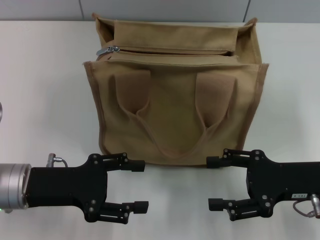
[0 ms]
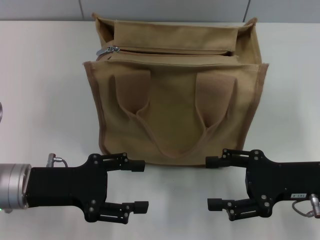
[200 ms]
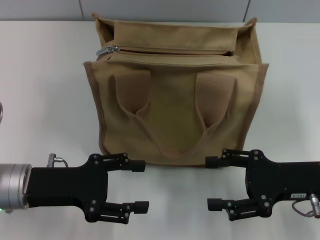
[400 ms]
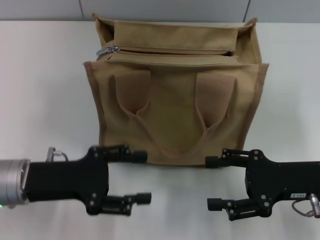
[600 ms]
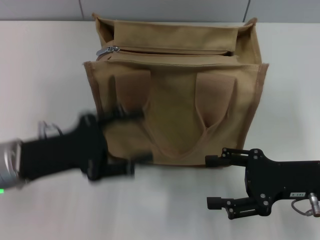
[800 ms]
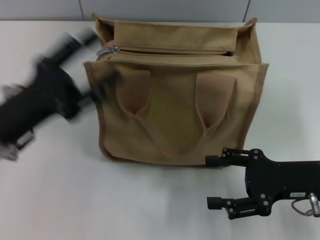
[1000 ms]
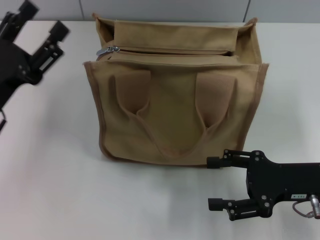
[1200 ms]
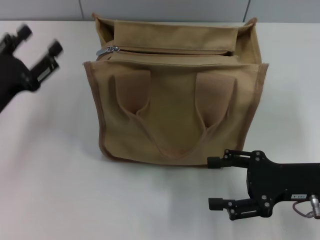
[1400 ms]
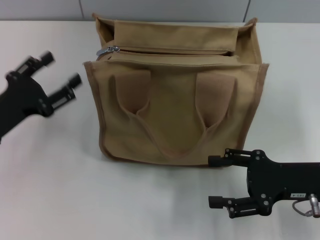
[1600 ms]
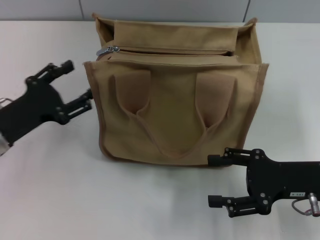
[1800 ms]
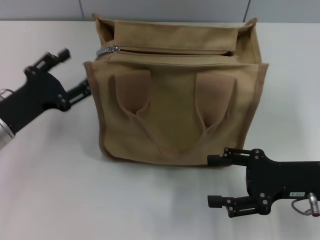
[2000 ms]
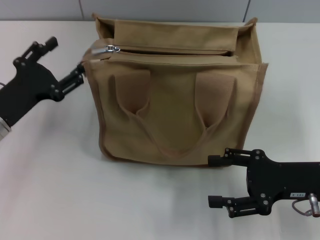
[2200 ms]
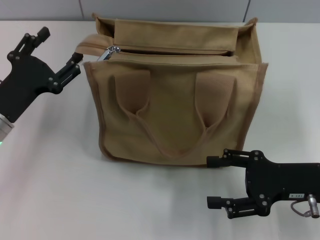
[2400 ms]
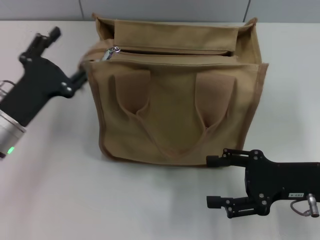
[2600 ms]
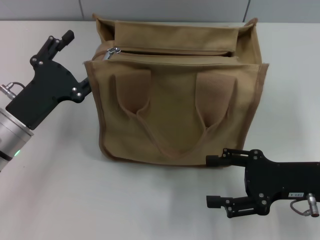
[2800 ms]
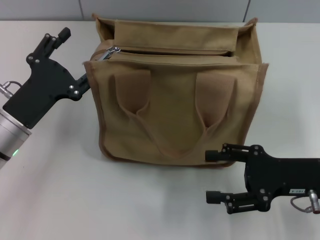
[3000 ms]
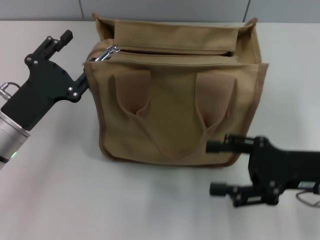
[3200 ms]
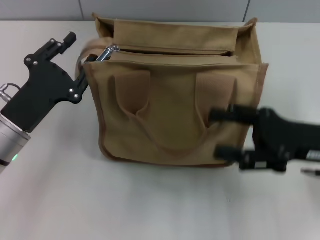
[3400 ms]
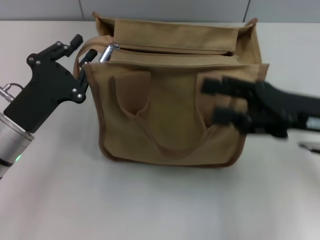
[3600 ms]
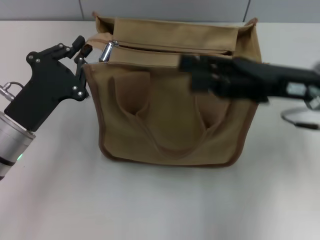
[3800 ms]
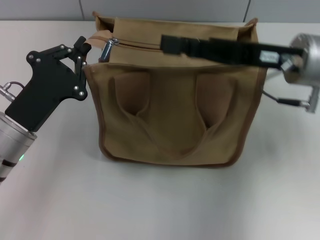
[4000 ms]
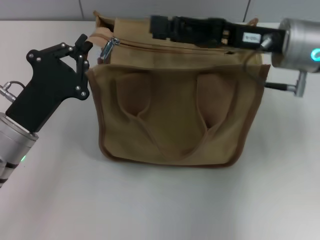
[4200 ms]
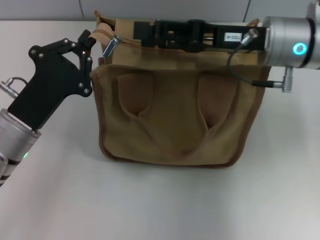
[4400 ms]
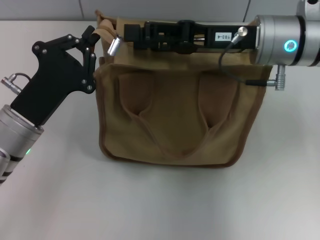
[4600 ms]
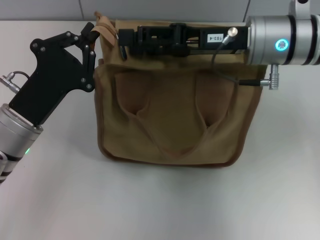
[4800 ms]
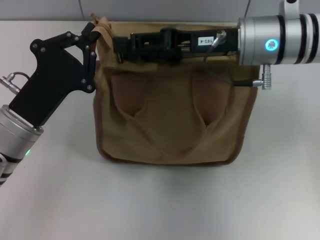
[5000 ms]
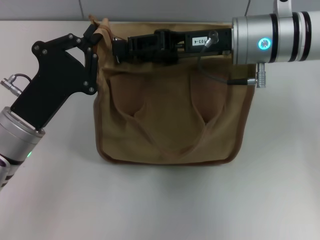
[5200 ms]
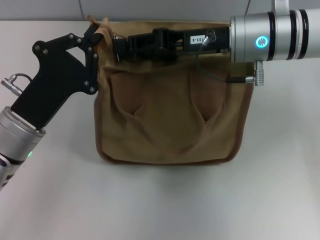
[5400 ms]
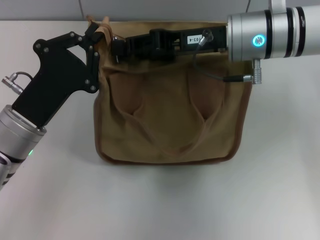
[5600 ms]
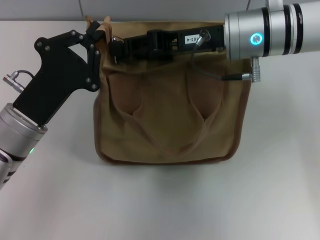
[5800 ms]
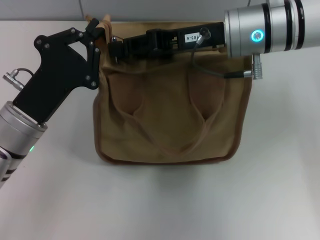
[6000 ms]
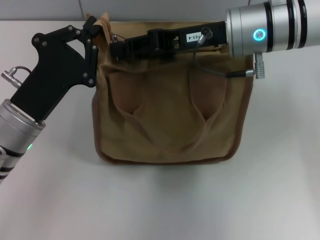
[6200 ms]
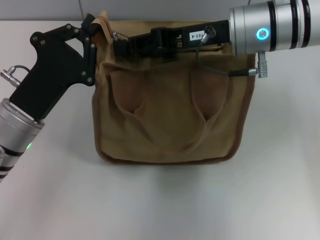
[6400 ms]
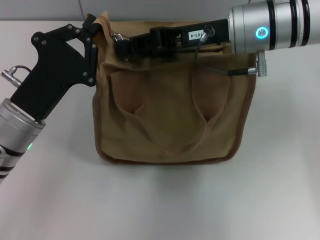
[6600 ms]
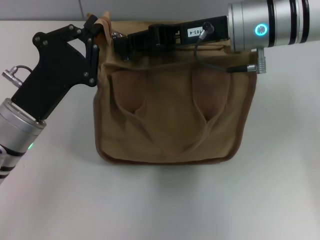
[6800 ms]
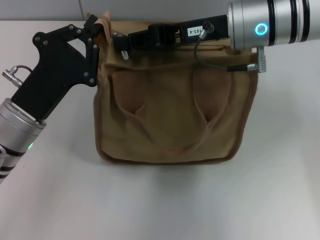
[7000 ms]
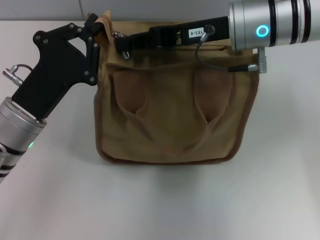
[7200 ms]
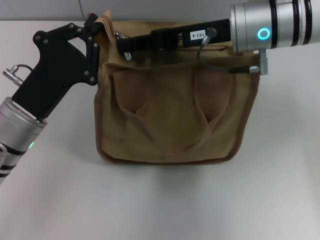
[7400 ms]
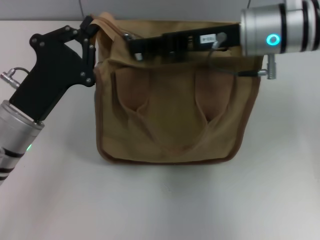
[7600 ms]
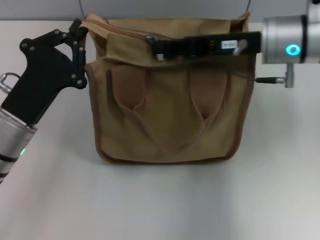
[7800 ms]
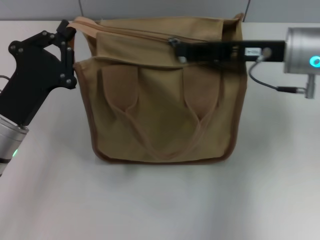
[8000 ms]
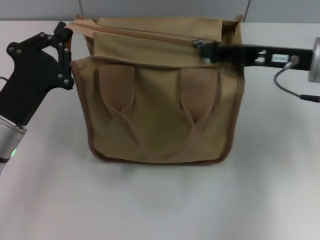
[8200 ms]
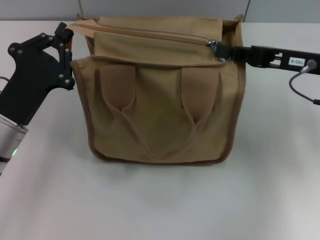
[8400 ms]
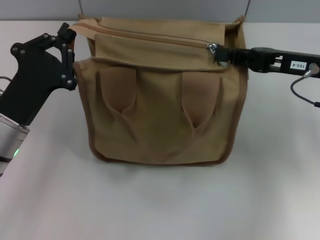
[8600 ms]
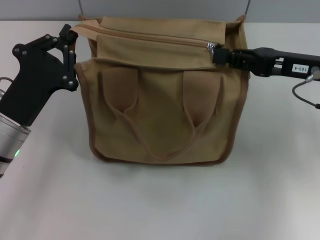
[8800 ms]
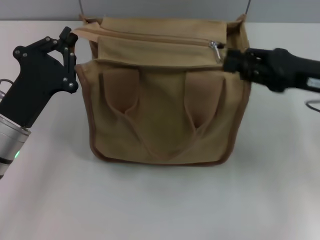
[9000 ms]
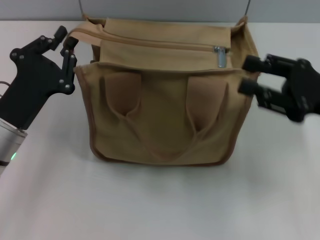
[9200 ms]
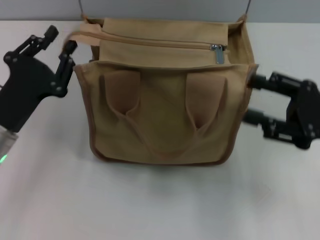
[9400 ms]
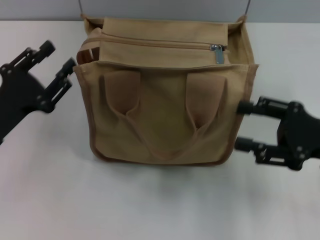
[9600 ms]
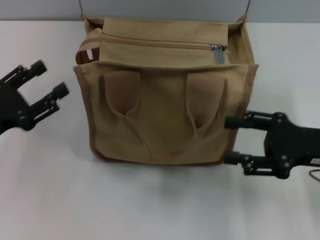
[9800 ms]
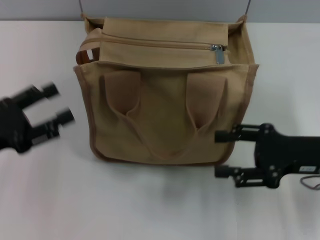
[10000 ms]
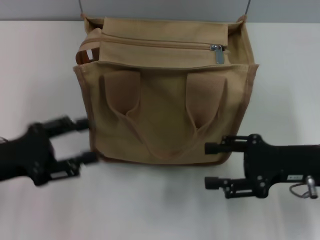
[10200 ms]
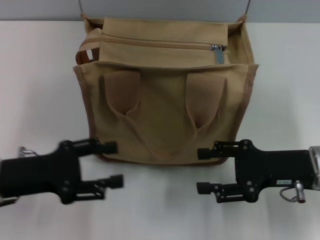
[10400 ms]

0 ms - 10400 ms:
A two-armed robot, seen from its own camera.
Step, 0 ms - 9200 ms: Pull up the zipper with your right hand.
Step, 9400 ms - 9800 ms: Grab the zipper with your left hand.
0 ms - 1400 ms: The left gripper shifts by about 5 cm.
3000 ms - 4400 ms: The left gripper closes, while the right gripper is displaced forward, upward and to the left by roughly 20 cm.
4400 ms - 6000 ms: The right gripper closes.
6000 ms - 7400 ms: There are only small adjustments of the grippers.
7400 ms - 9000 ms: The right gripper moves to the right and backward, about 15 cm.
9000 ms - 10400 ms: The right gripper travels downward and backward by about 10 cm, and opens up. The left gripper opens its fingers.

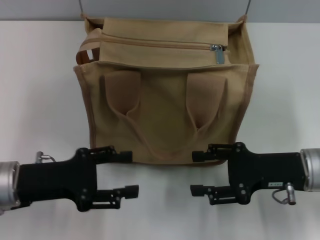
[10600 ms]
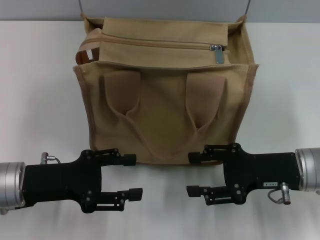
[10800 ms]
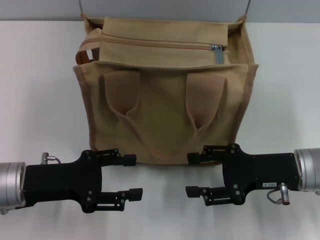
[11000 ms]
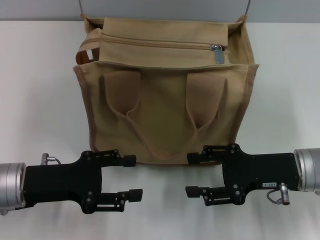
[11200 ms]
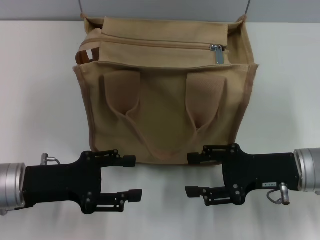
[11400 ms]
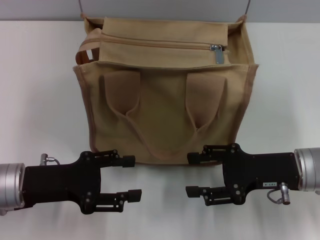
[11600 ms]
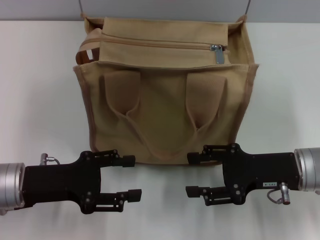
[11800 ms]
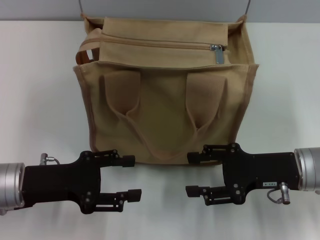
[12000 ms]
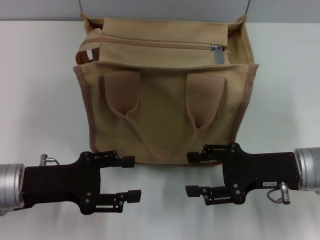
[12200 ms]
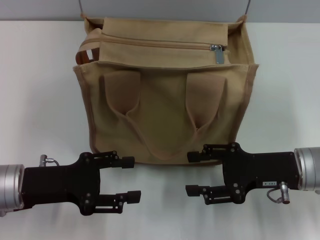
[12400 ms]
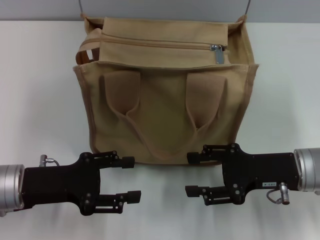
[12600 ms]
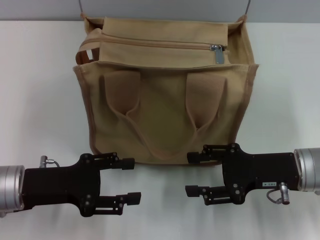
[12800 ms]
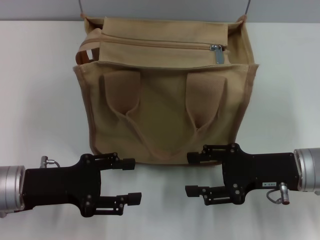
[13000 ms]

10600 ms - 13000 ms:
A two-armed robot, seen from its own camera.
10600 ms - 13000 ms: Both grippers stay about where they are.

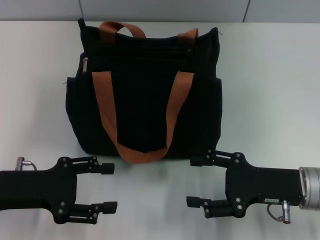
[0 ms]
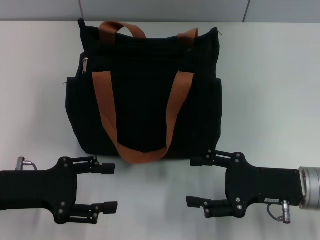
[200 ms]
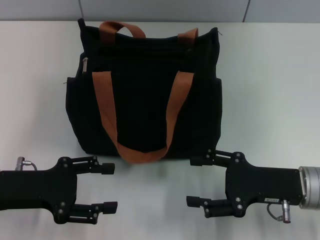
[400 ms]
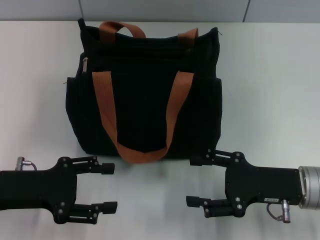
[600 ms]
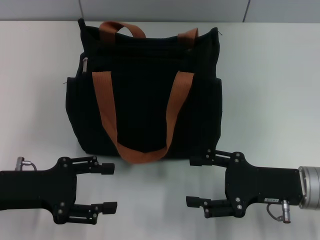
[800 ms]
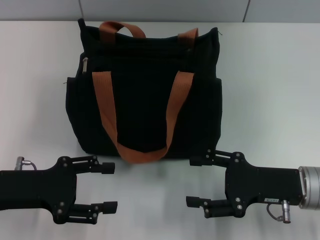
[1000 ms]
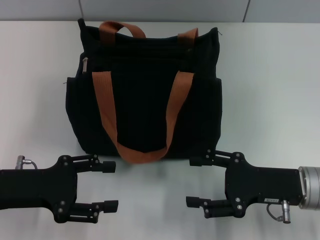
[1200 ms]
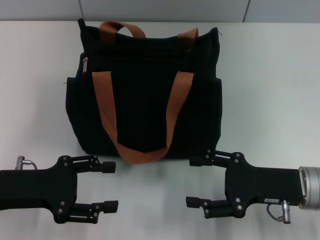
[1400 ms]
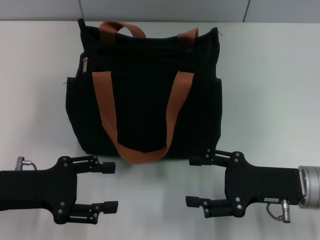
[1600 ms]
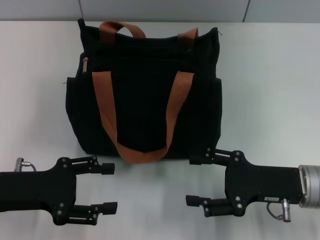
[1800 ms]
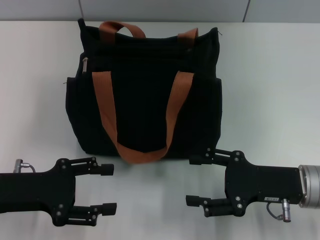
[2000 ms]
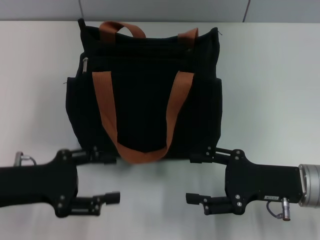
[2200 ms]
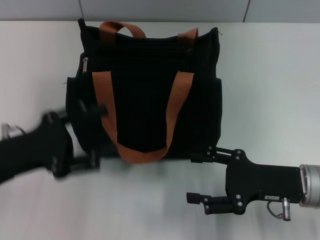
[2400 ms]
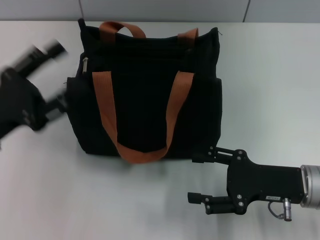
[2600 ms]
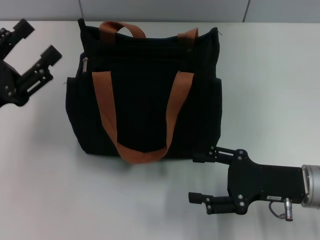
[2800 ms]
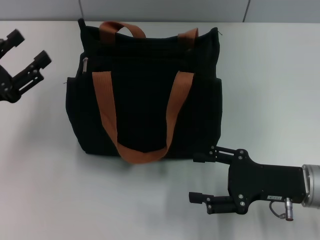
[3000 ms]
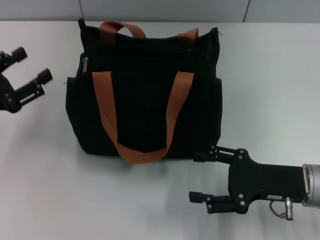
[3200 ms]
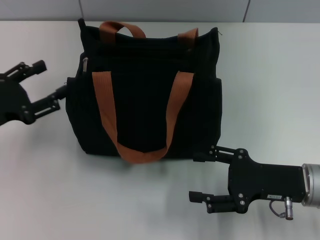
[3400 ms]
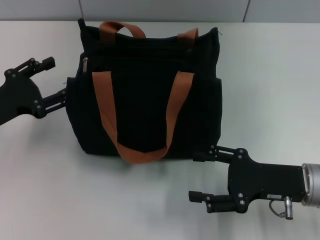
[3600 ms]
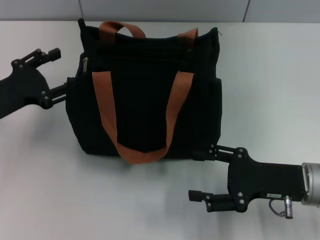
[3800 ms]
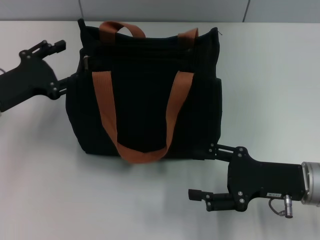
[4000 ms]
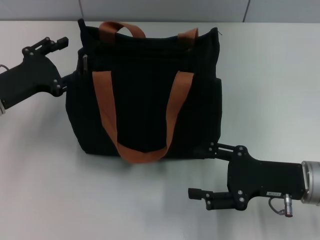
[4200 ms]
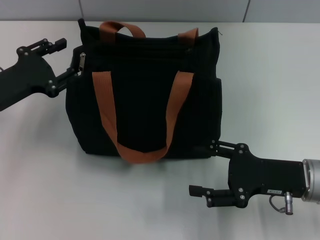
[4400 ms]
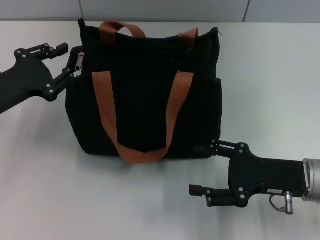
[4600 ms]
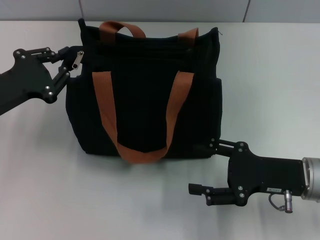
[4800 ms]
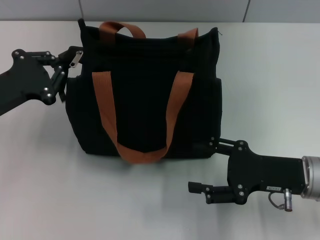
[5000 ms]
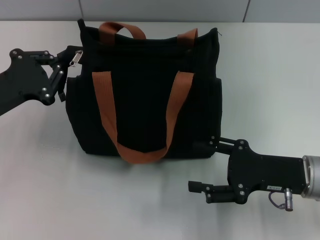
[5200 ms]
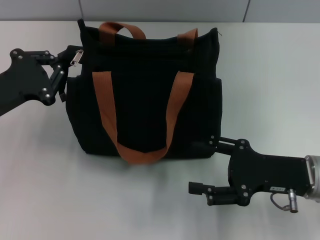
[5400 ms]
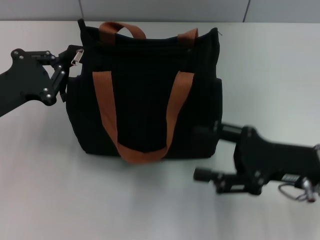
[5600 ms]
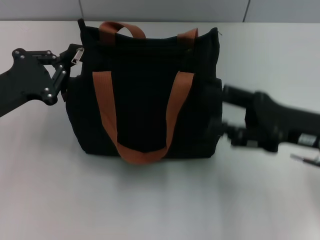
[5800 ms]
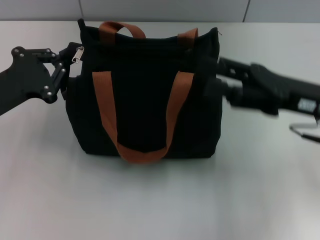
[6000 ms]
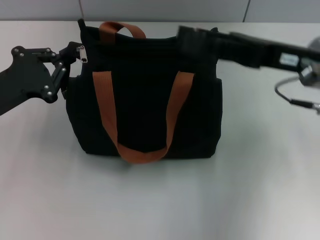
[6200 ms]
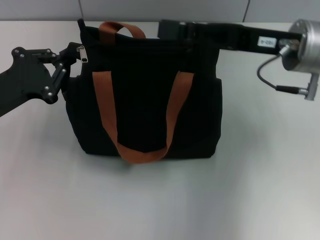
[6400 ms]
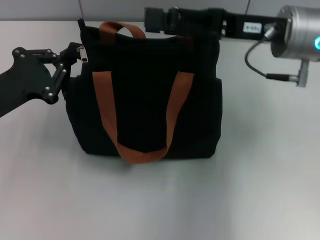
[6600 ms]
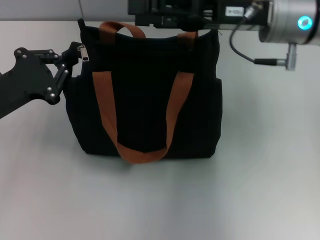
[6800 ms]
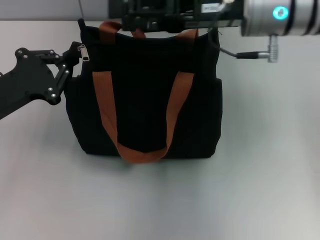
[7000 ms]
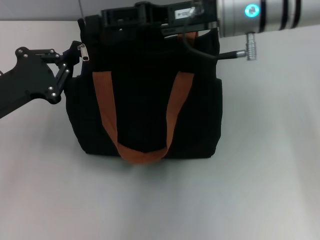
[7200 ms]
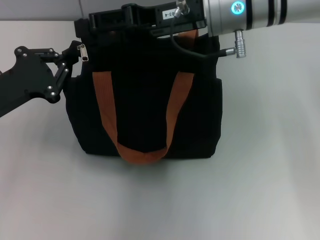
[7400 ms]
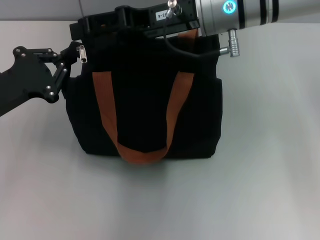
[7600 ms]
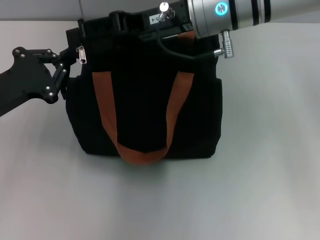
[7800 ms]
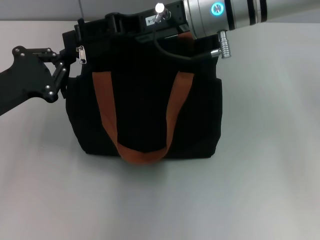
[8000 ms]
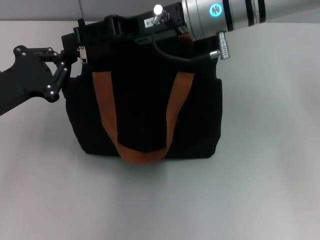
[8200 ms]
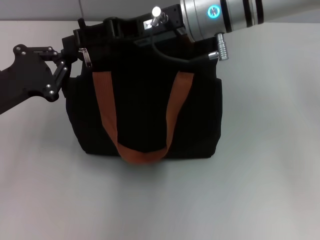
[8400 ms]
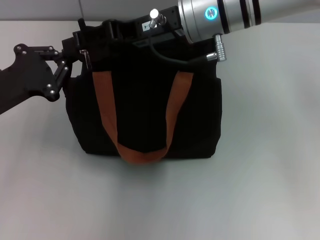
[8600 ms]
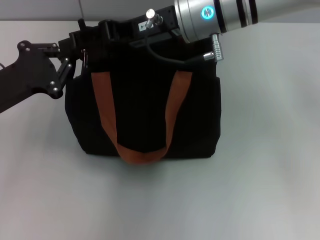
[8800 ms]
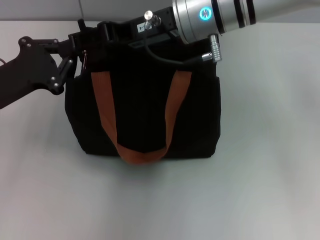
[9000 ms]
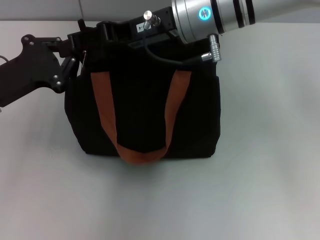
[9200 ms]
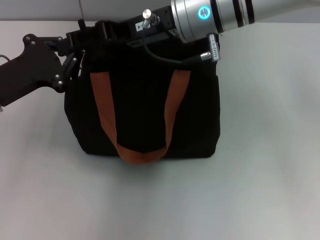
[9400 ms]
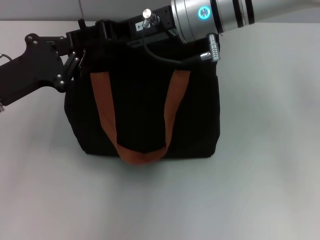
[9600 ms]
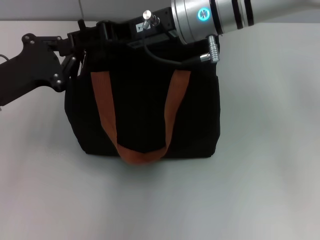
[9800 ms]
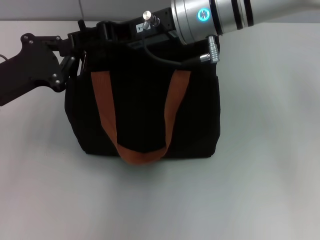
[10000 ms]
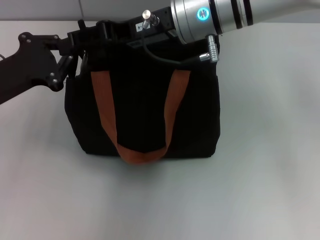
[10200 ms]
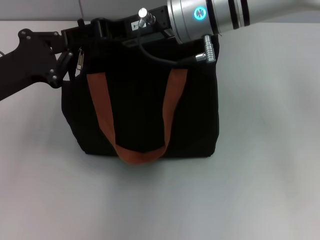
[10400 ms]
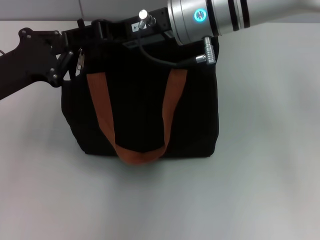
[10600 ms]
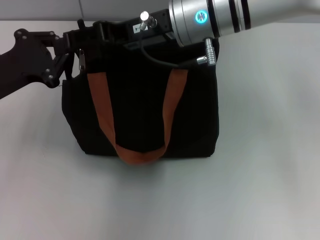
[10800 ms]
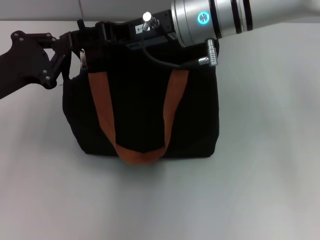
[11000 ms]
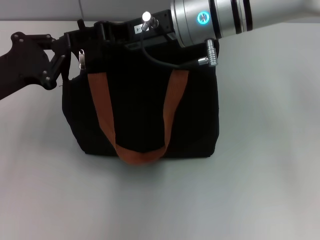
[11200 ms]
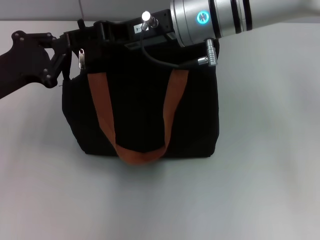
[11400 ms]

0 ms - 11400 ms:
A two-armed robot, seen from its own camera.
0 ms - 1400 ms: Neither gripper changes place.
2800 ms - 4200 ms: The left gripper heads forward, covering about 10 cm.
4200 ms - 5600 ms: The left gripper closes its fingers.
5600 ms - 7200 ms: The right gripper shifts about 25 cm forward, upward and to the left.
7200 ms - 10000 ms: There are only small adjustments of the grippers.
10000 ms - 11400 ms: Both grippers stay about where they are.
